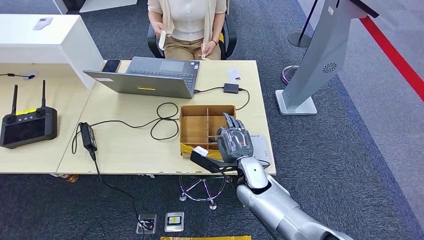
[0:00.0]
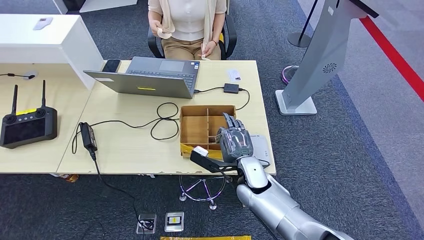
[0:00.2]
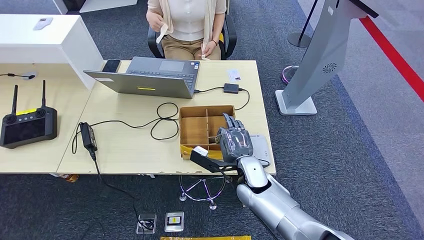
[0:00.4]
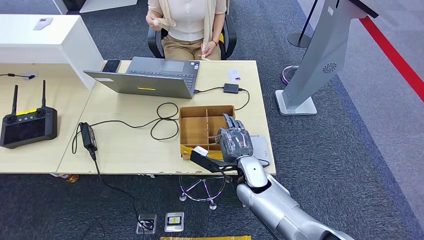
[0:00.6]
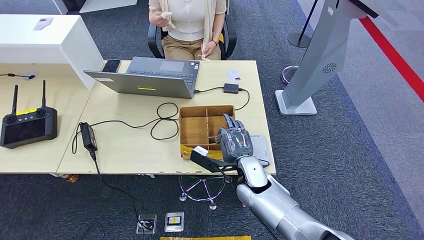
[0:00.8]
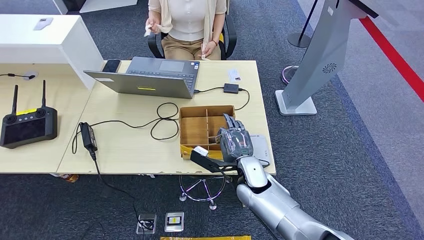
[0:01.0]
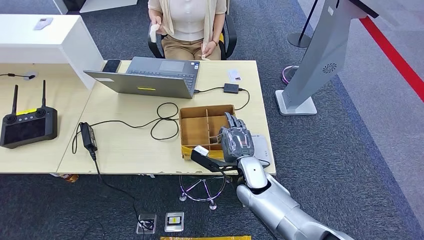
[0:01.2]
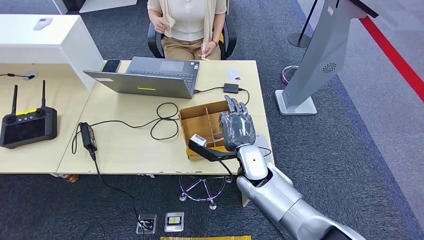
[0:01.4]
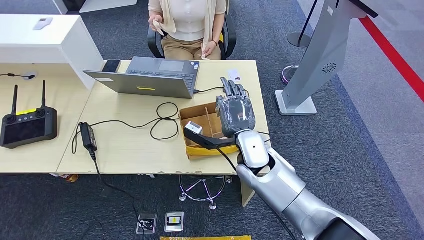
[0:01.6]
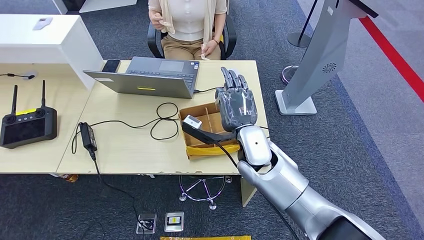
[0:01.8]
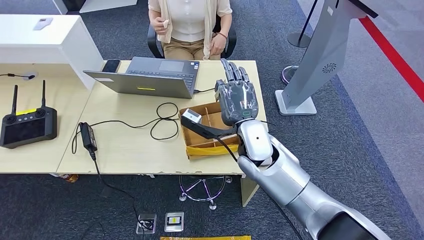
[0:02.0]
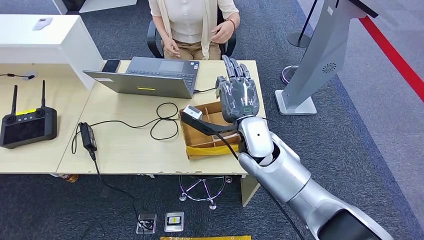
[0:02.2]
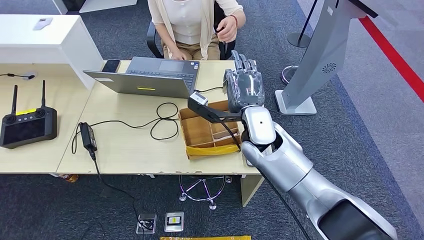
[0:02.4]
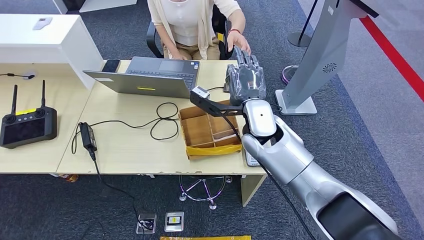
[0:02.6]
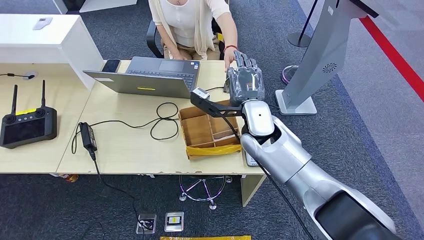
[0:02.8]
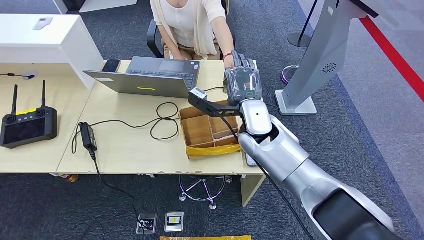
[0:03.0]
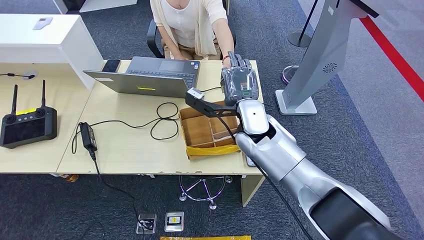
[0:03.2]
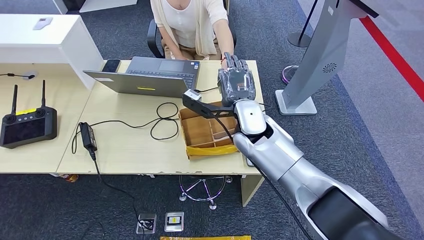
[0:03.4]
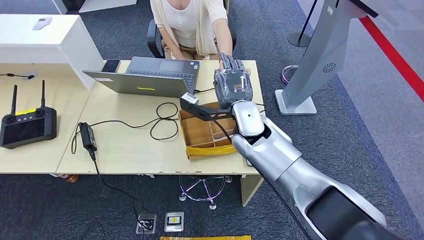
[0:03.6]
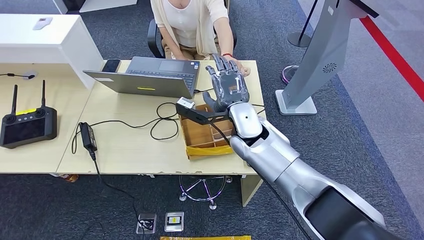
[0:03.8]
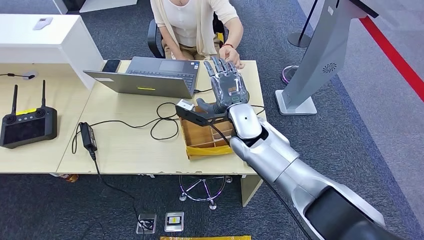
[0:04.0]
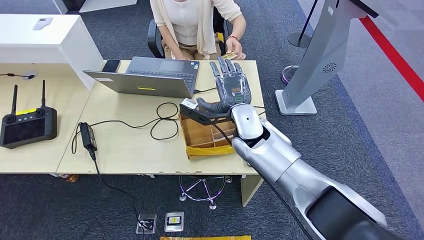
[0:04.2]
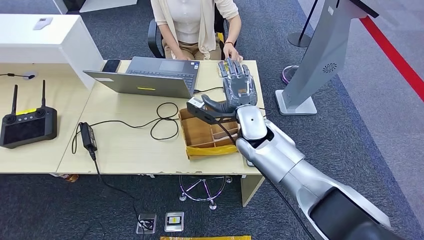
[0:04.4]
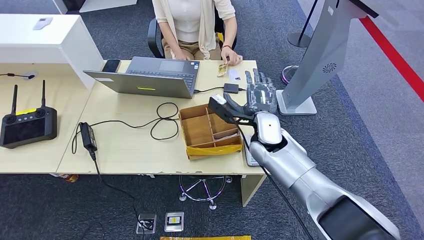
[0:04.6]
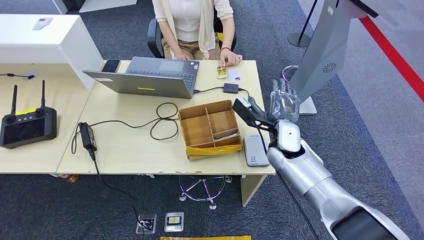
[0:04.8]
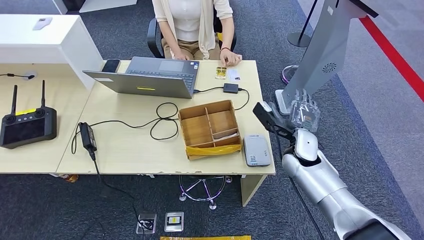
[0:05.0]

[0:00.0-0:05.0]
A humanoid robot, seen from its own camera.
Step, 0:00.0 to 0:02.4: Pick up the room key from the key card box.
Step, 0:02.8 to 0:05.0: Hand the room key to the person.
0:00.0 to 0:01.6: The right hand travels upward by about 10 cm.
0:01.6 to 0:03.4: The right hand shifts about 10 cm upward and forward.
0:03.4 to 0:05.0: The right hand is displaced to the right and downward by roughly 20 cm.
